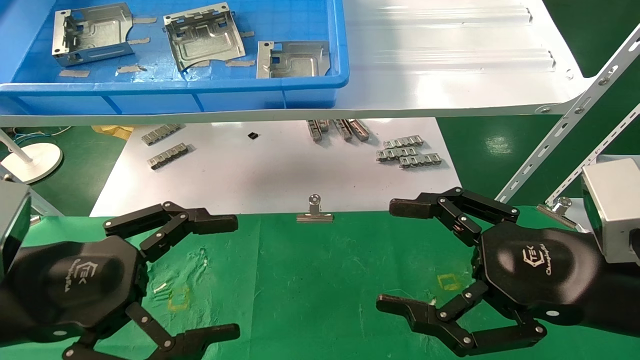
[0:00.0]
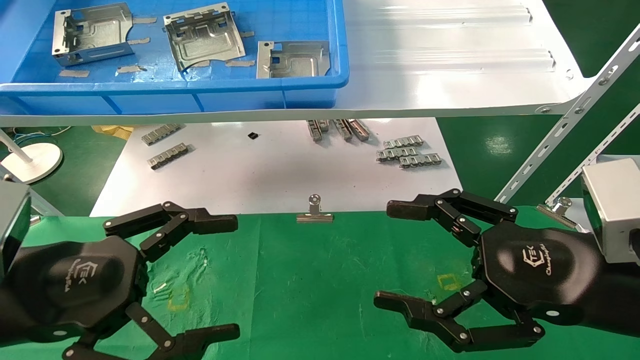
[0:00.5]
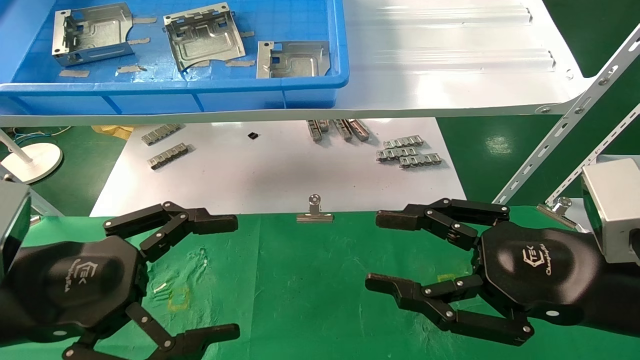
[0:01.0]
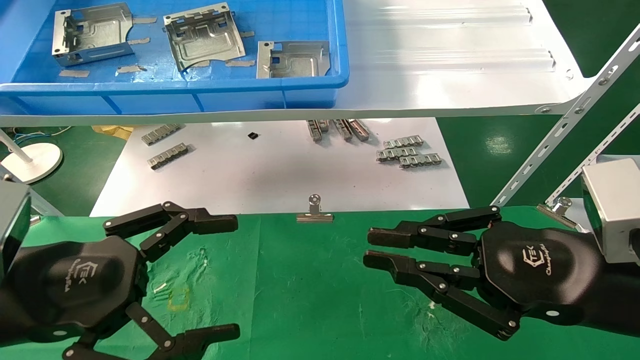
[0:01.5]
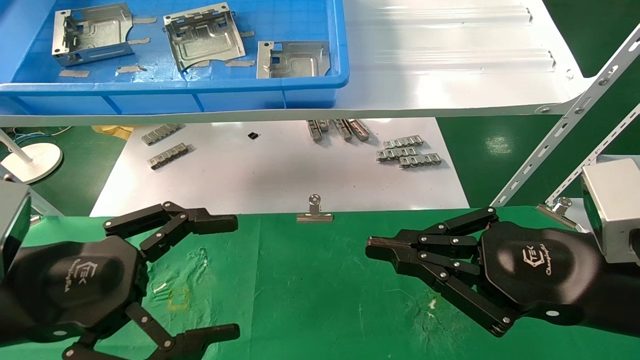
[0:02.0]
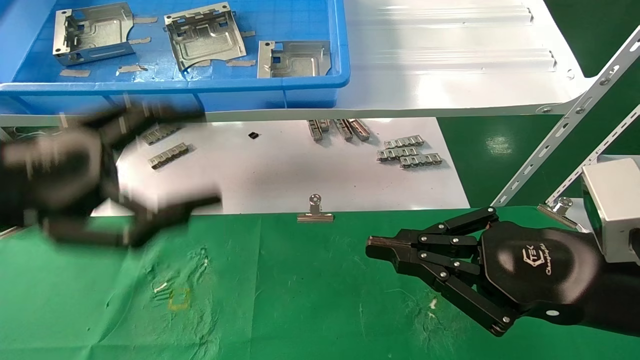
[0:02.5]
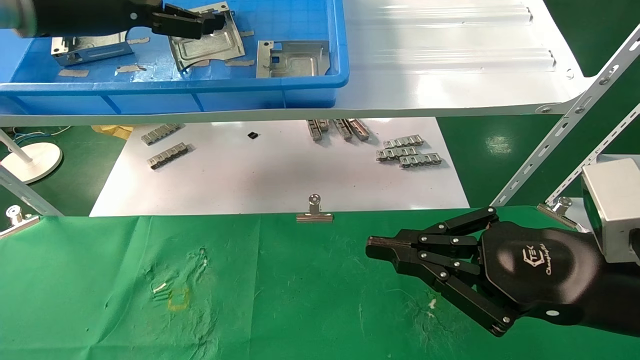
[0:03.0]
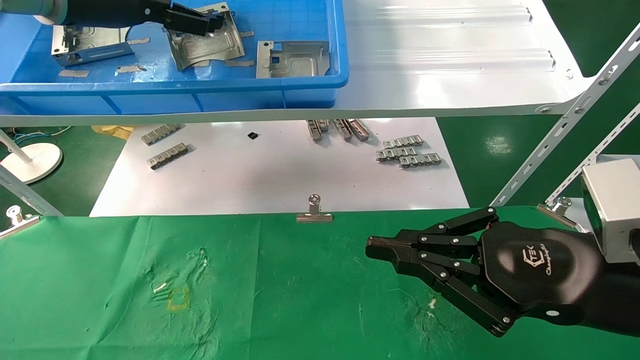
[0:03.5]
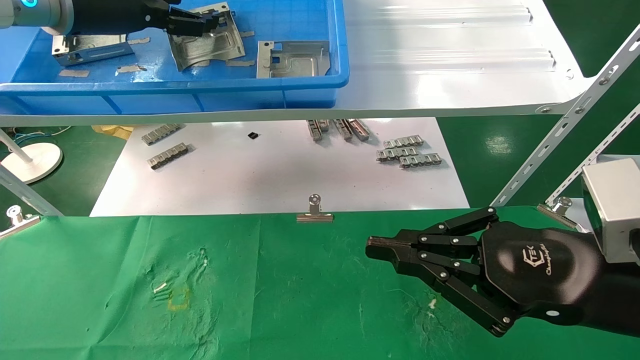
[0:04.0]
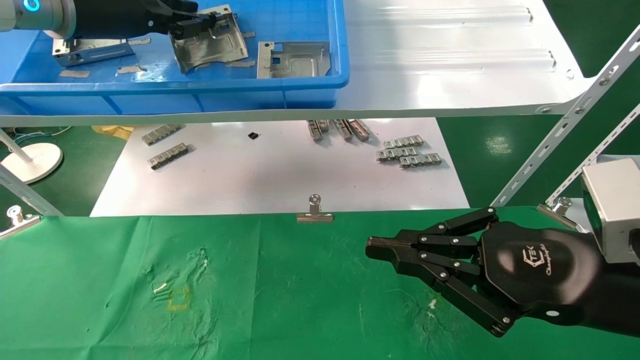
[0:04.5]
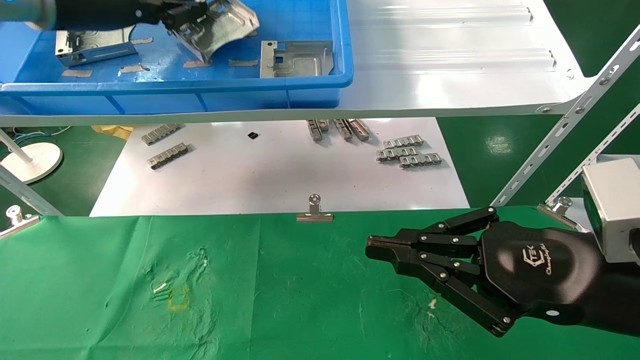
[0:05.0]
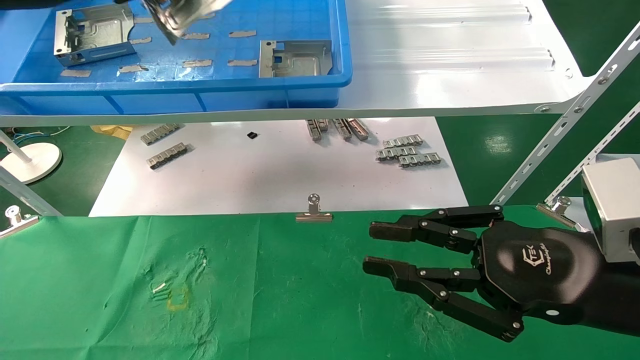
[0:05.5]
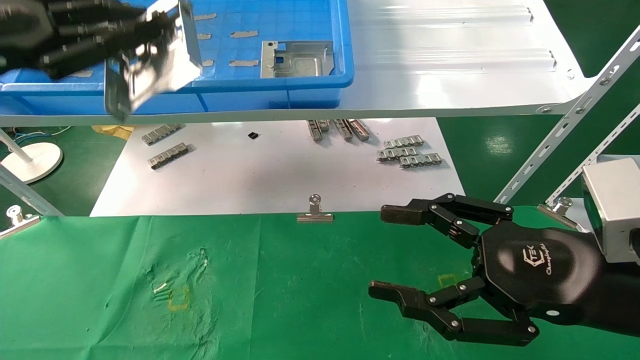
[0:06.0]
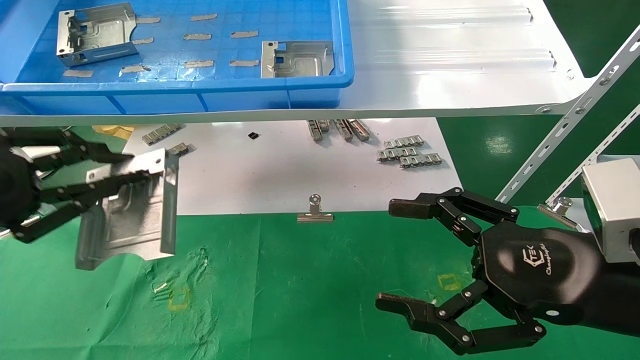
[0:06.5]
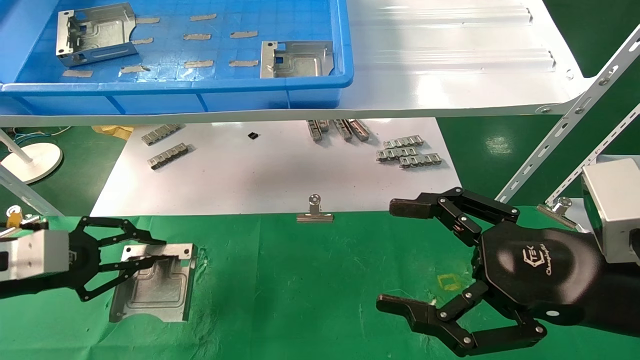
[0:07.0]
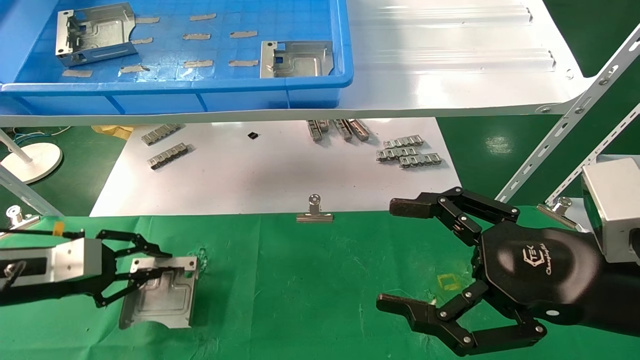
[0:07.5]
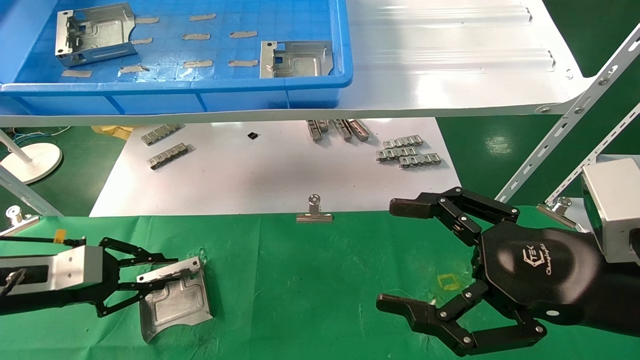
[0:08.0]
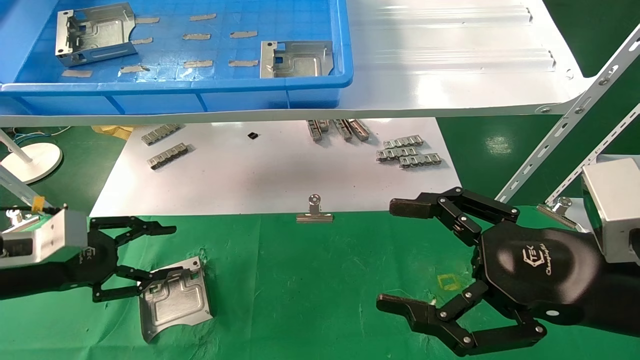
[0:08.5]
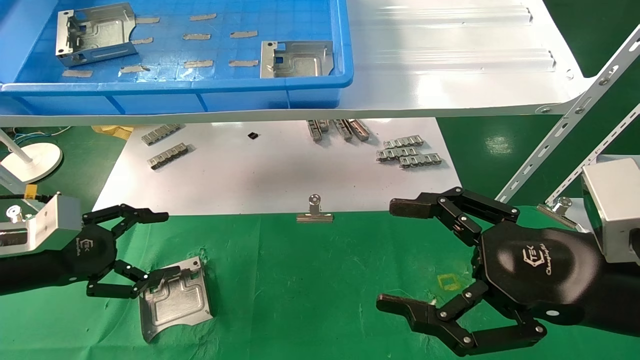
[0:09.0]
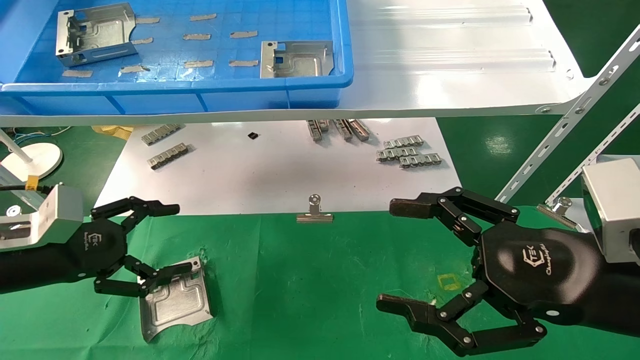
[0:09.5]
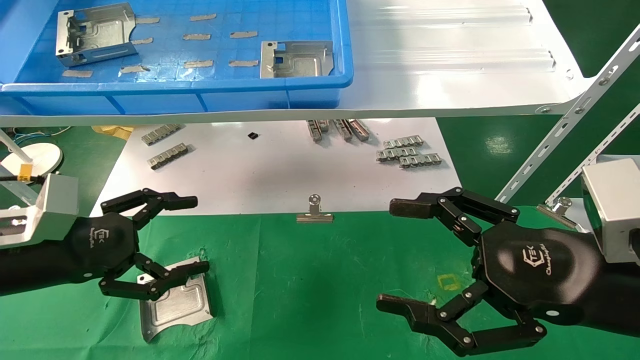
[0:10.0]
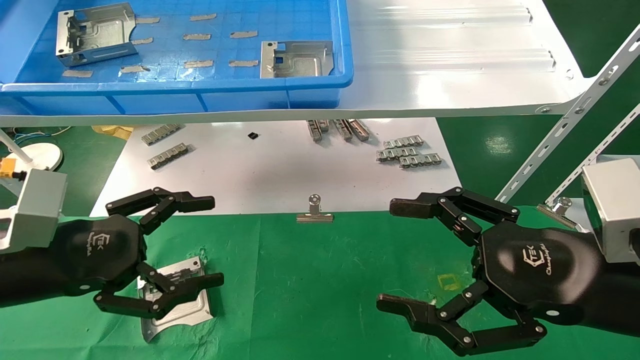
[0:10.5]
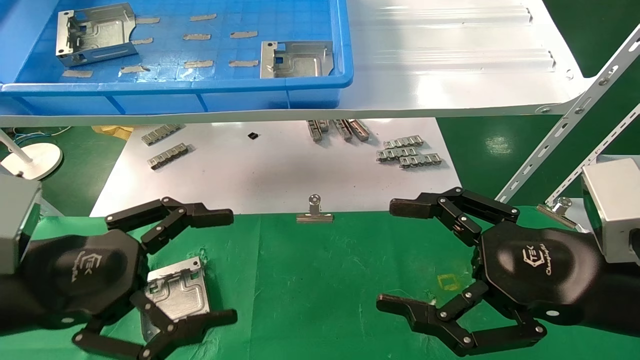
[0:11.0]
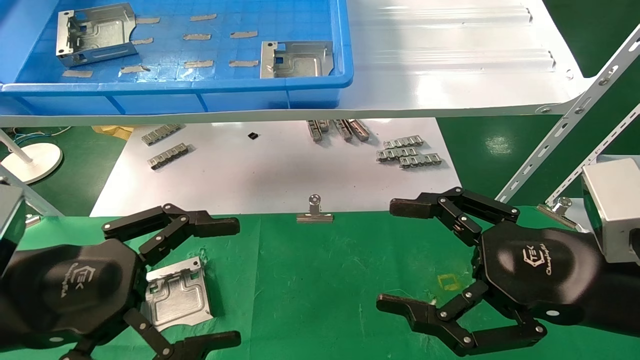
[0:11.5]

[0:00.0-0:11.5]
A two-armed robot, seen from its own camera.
Task of the whole recording: use the mechanical arm to pick up the parts and place them on the table.
Step, 0:02.5 to 0:04.5: Pick up the hard drive bracket from the feeding area.
Step, 0:05.0 to 0:08.5: Place the hard drive bracket into the box.
0:00.0 to 0:02.0: The right gripper closes up.
0:02.0 to 0:04.0: The left gripper is displaced upward and forward by about 30 cm.
0:04.0 to 0:06.0: The right gripper opens up; the left gripper travels backward, to the left and downward by some 20 cm, and closes its fingers.
0:06.0 to 0:07.5: The right gripper opens, while the left gripper moves downward, some 25 cm.
0:07.5 to 0:09.5: The left gripper moves roughly 5 cm, and opens its fingers.
0:09.5 to 0:11.5: The left gripper is displaced backward and to the right by about 15 cm.

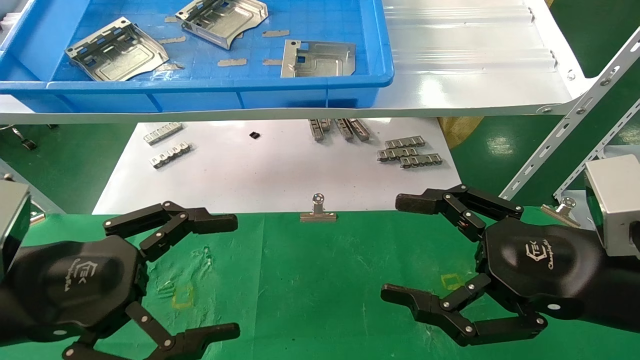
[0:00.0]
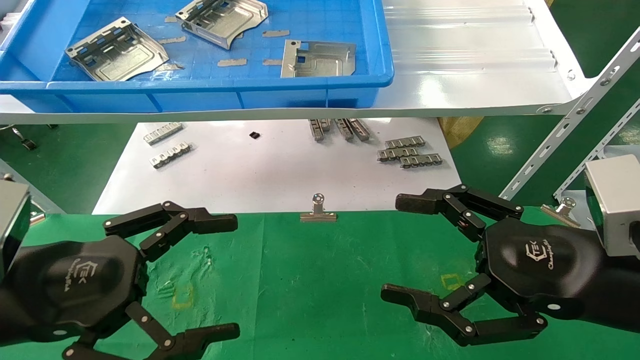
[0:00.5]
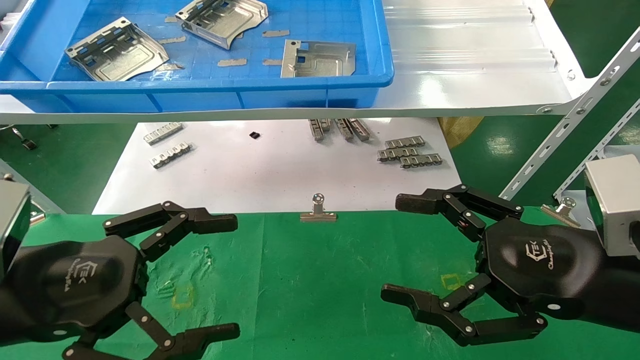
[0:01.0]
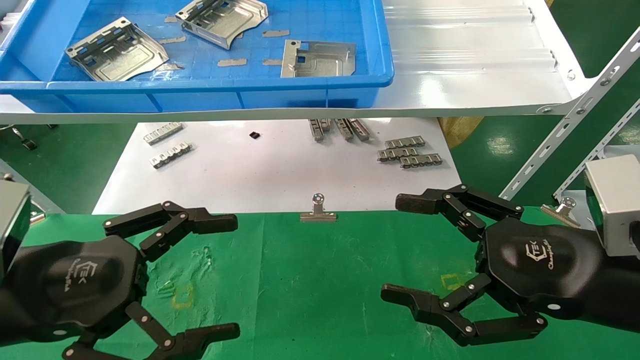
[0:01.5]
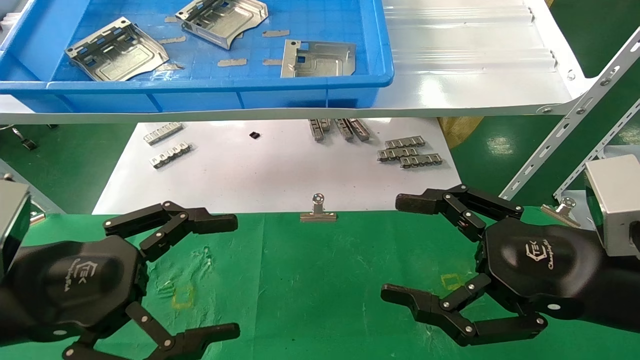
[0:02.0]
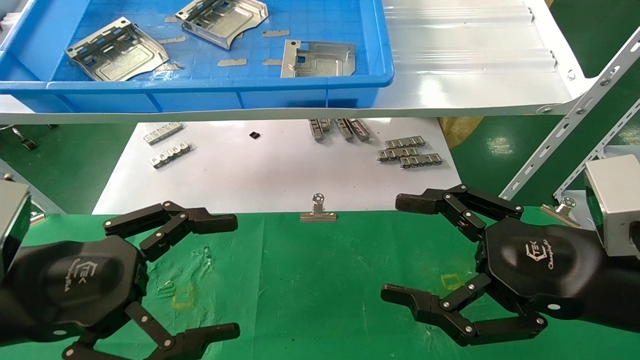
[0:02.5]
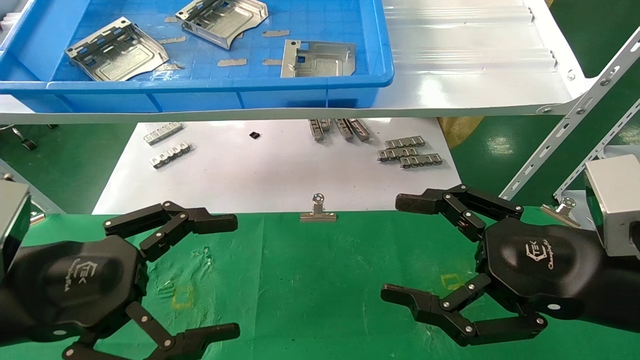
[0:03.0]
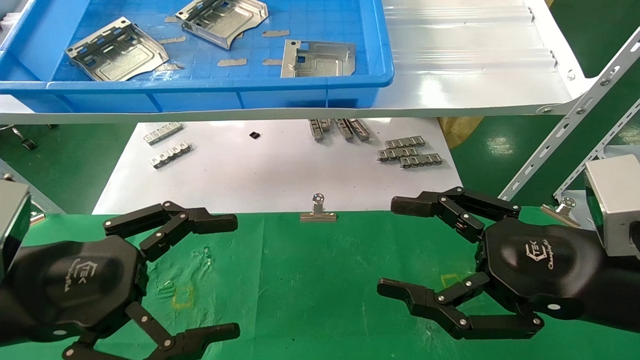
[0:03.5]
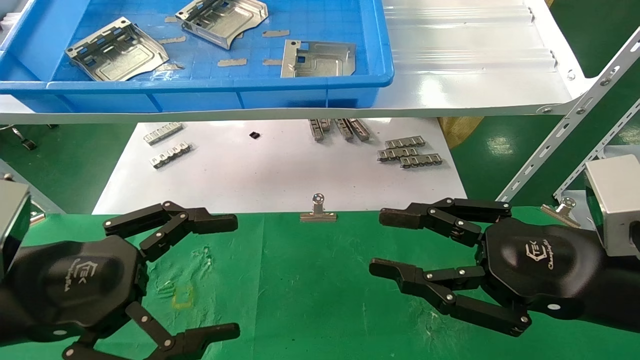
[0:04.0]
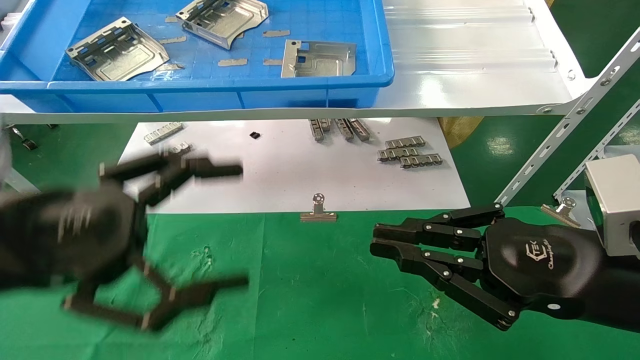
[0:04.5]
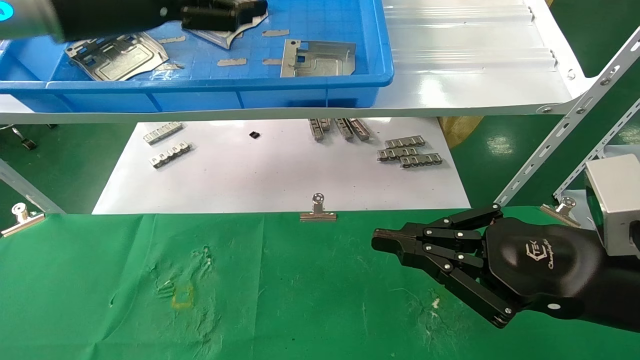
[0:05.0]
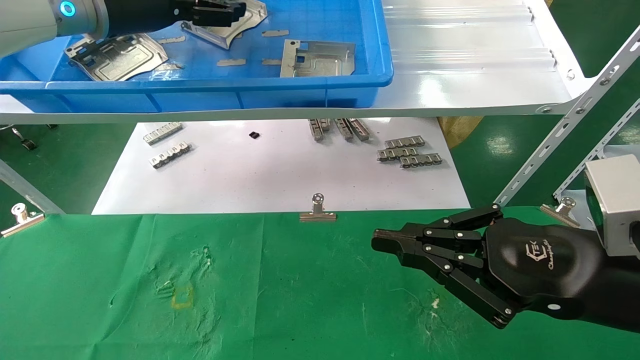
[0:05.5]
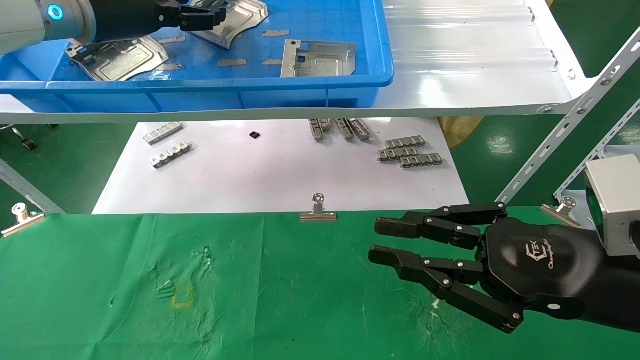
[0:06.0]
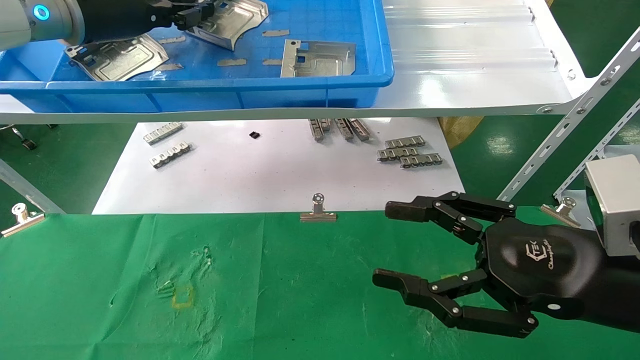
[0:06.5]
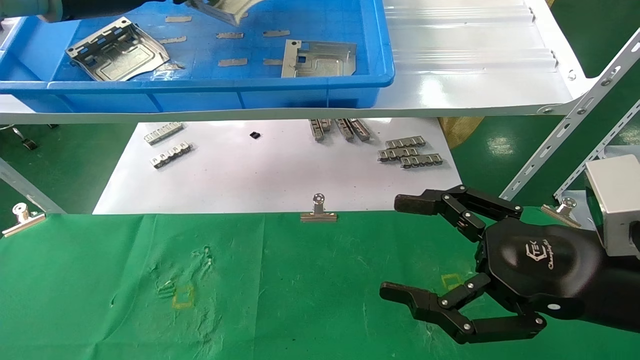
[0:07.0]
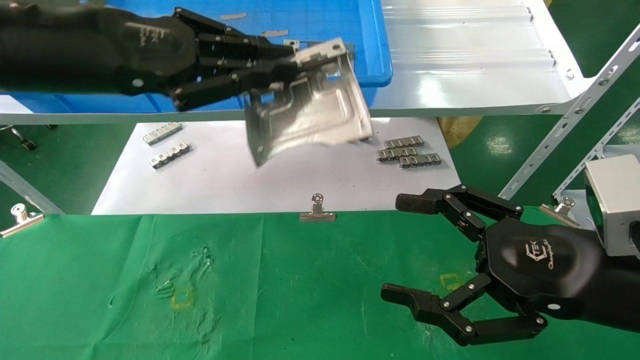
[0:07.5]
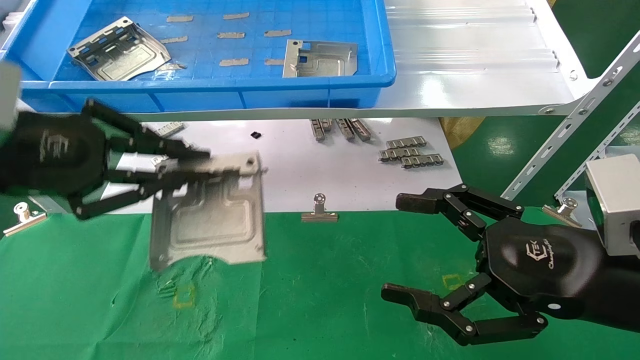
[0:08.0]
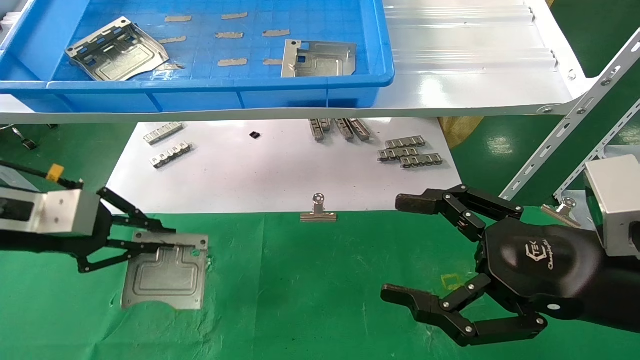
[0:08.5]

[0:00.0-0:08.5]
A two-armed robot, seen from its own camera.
Task of the whole recording: use the mechanical arm to pick up the parts and place them on the table.
Step, 0:05.0 to 0:06.5: Pick up the hard drive bracket from the feeding area.
0:00.0 to 0:02.0: The two grippers keep their place.
0:02.0 to 0:04.0: The right gripper closes its fingers.
0:04.0 to 0:06.5: The left gripper heads forward and upward, covering approximately 30 cm, and closes its fingers; the right gripper closes, then reopens.
0:06.5 to 0:08.5: The right gripper opens up. The left gripper shifts approximately 25 cm downward, backward and to the left.
